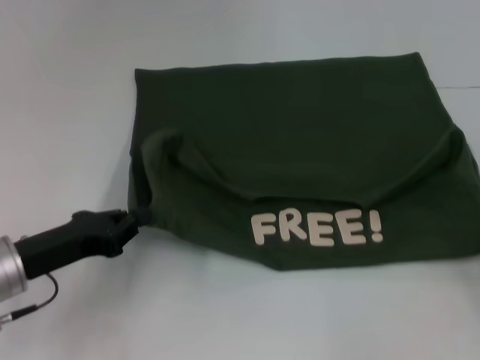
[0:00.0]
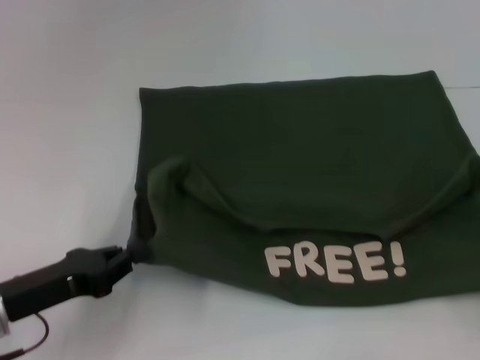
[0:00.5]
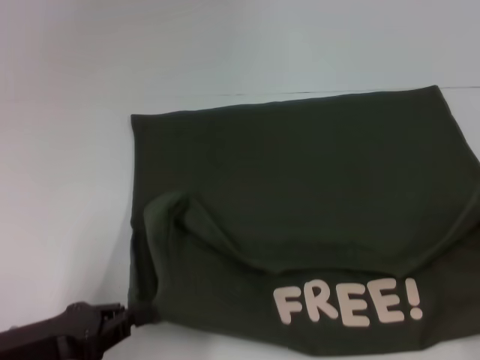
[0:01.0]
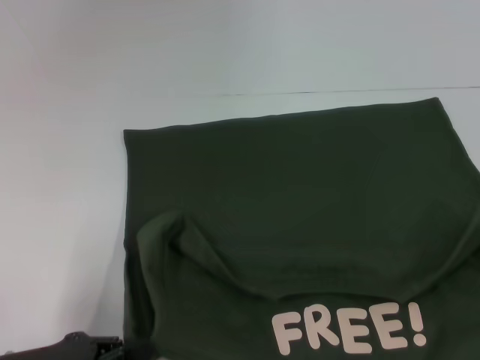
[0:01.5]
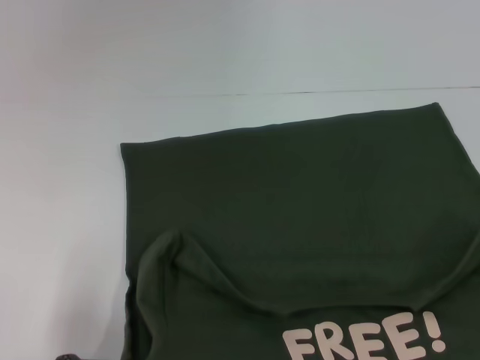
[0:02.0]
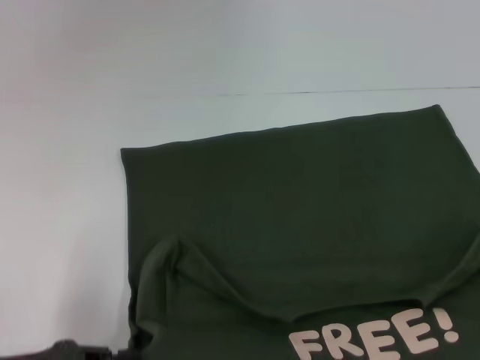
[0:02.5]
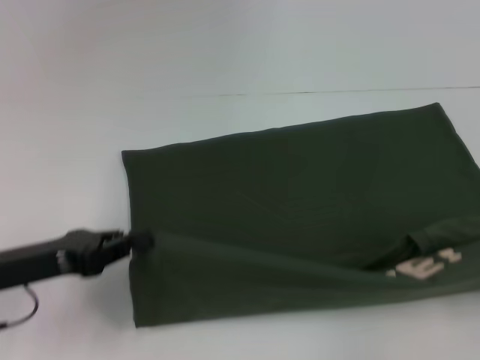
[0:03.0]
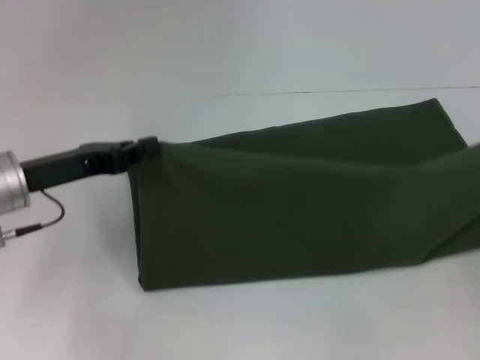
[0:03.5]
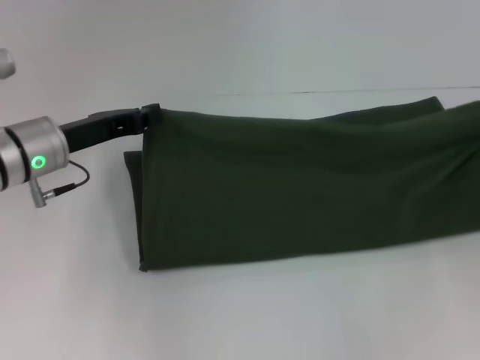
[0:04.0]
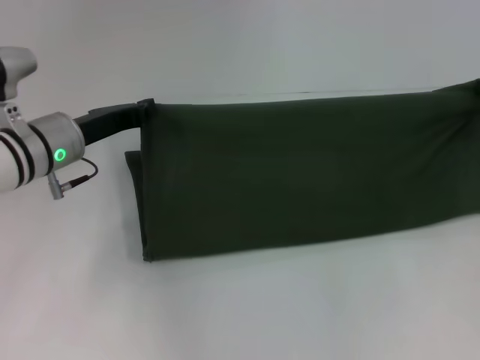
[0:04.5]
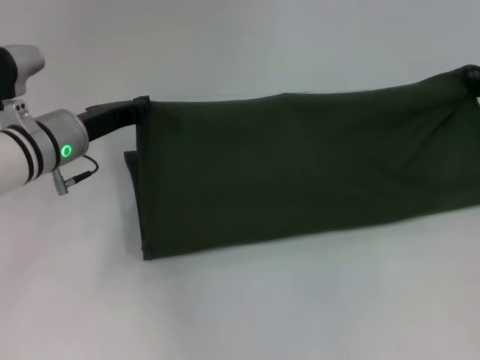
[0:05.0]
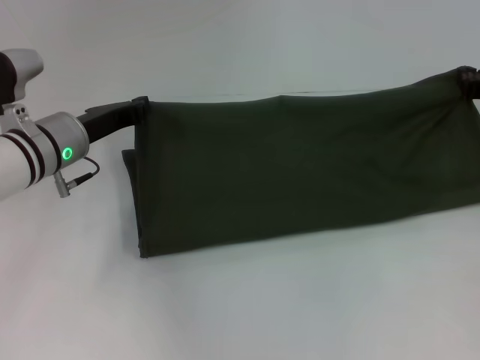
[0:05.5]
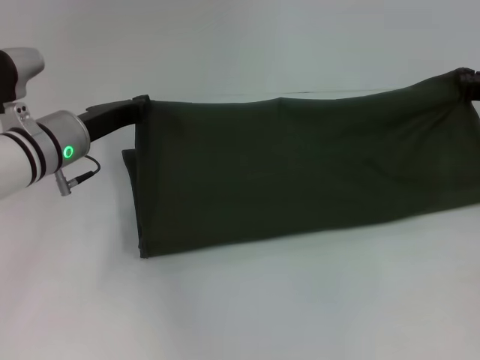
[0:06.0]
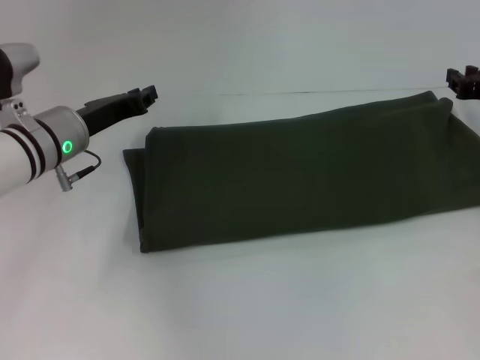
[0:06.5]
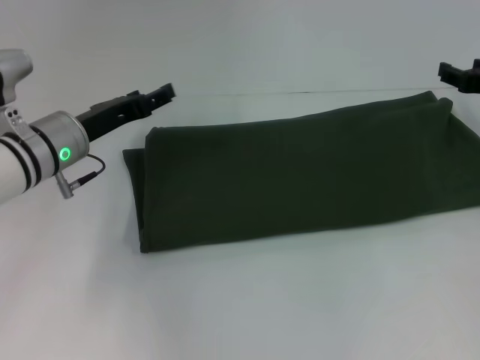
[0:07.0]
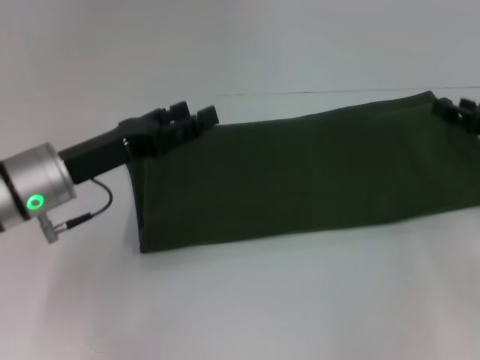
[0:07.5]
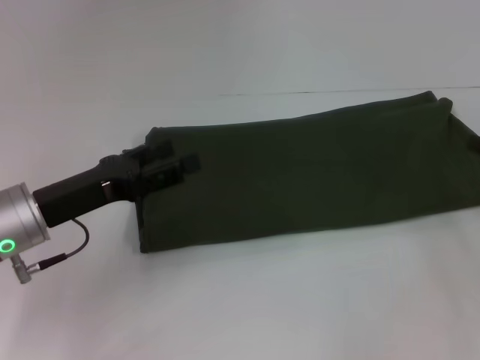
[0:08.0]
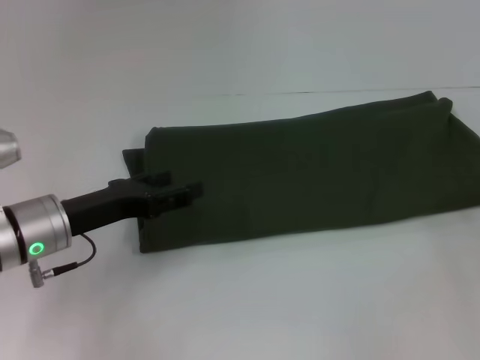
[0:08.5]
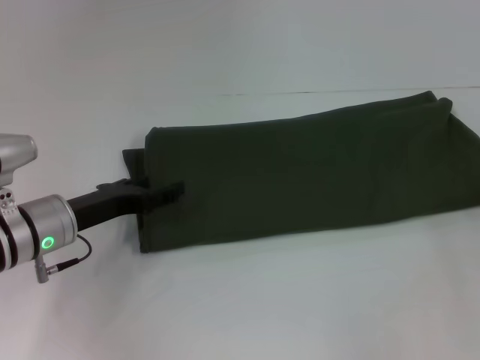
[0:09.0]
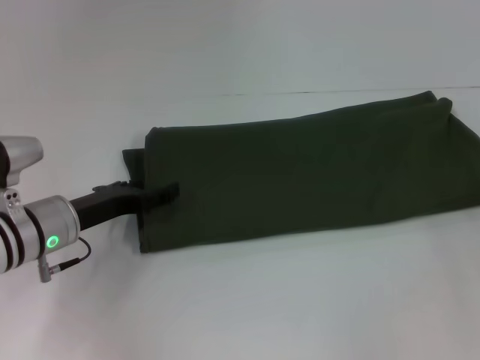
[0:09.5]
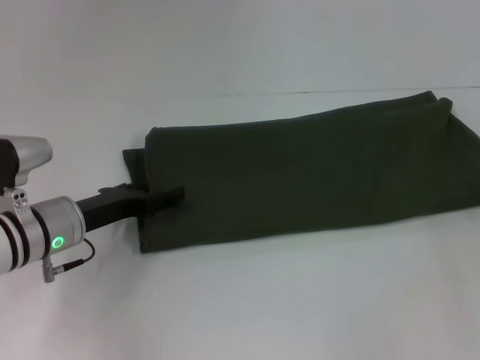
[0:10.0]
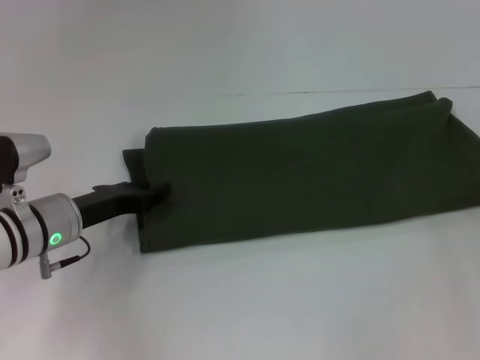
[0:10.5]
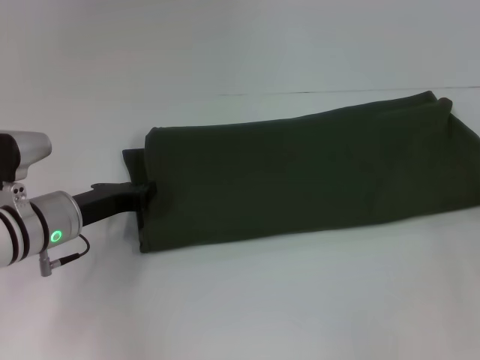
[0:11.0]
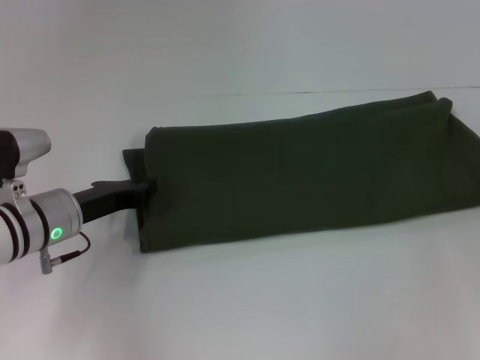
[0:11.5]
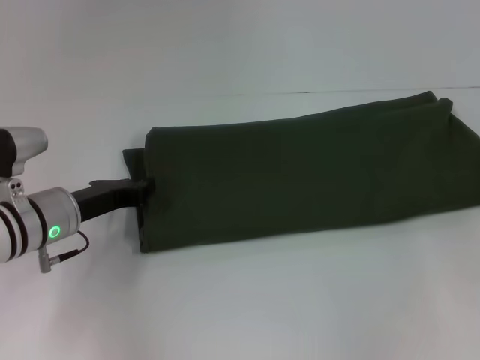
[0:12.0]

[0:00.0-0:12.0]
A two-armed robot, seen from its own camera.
Step, 0:02.0 to 0:06.0: Fold the clothes with your right hand.
0:00.0 to 0:02.0: The grippers both shift backward by approximately 10 cm.
0:02.0 to 0:04.0: The grippers both shift forward by about 25 cm.
0:04.0 to 0:06.0: The right gripper moves forward and to the left, some 10 cm.
0:06.0 to 0:08.0: The grippers both shift backward by approximately 10 cm. The right gripper opens. The left gripper opens its fingers.
0:08.0 to 0:10.0: The left gripper travels downward by about 5 cm.
0:10.0 to 0:12.0: The left gripper closes its fingers.

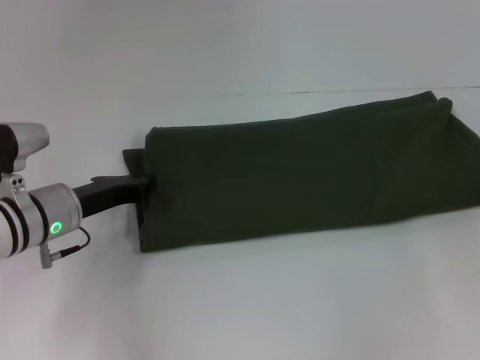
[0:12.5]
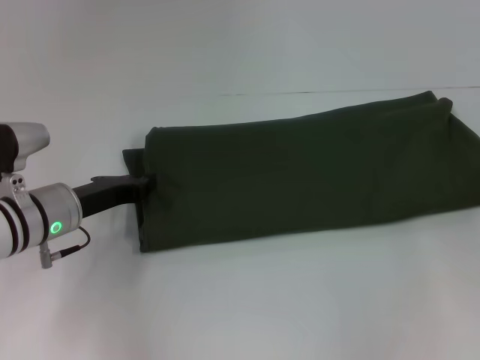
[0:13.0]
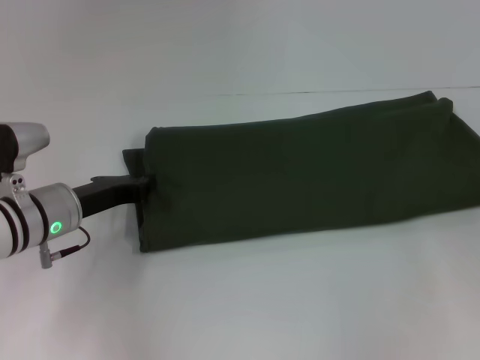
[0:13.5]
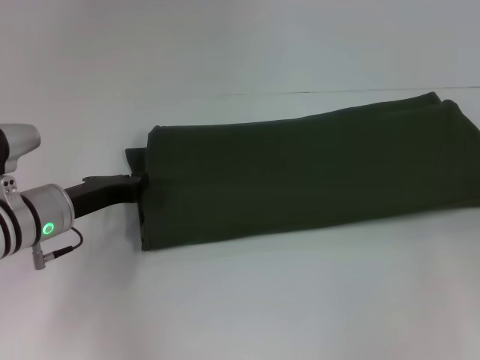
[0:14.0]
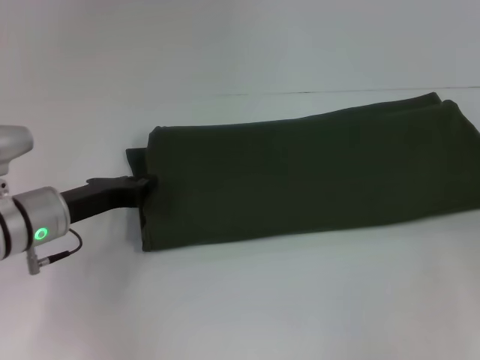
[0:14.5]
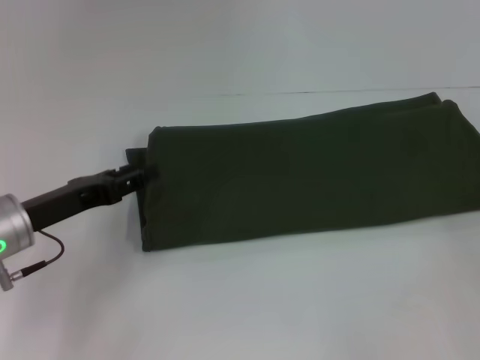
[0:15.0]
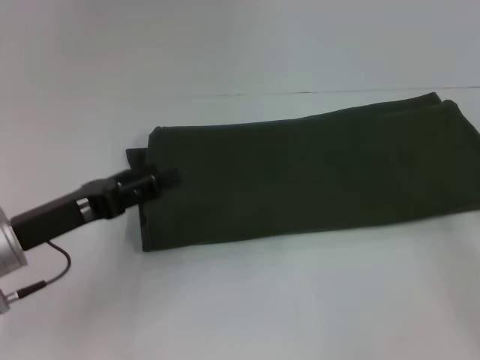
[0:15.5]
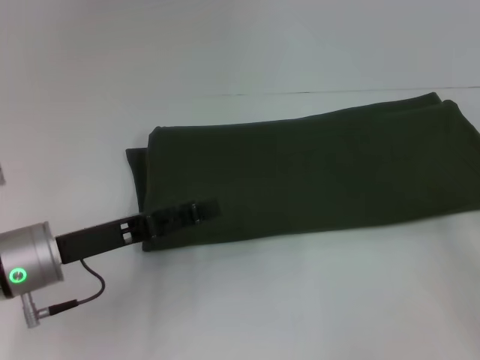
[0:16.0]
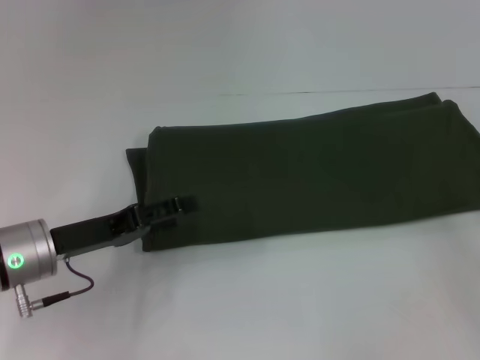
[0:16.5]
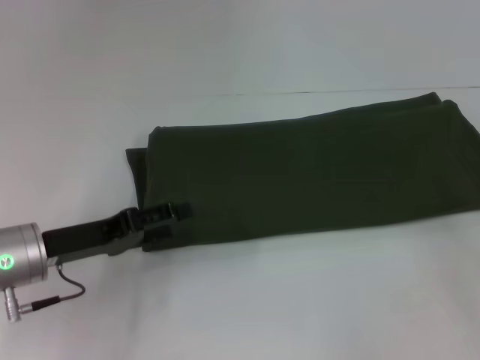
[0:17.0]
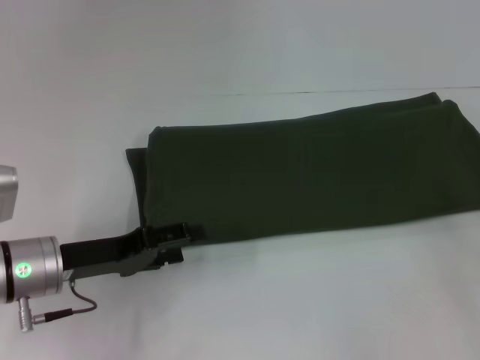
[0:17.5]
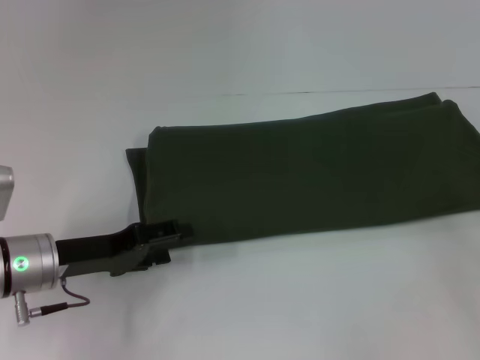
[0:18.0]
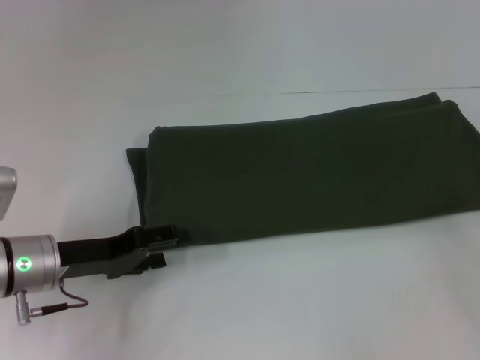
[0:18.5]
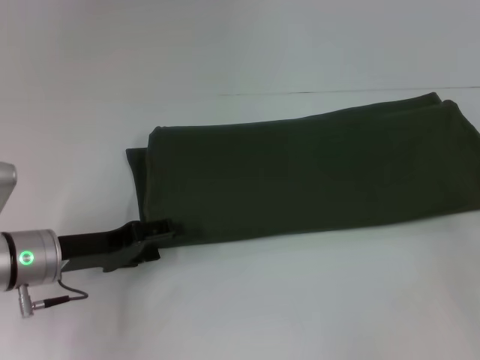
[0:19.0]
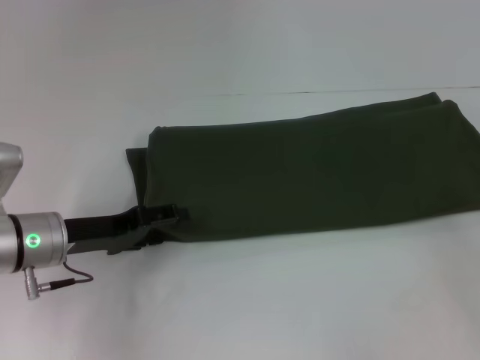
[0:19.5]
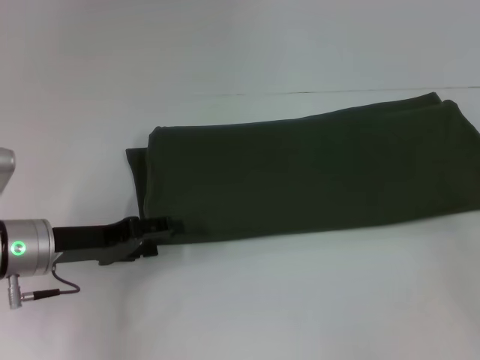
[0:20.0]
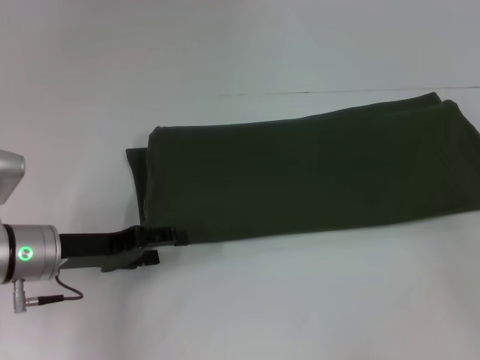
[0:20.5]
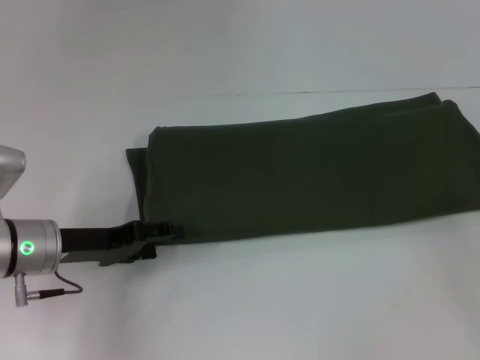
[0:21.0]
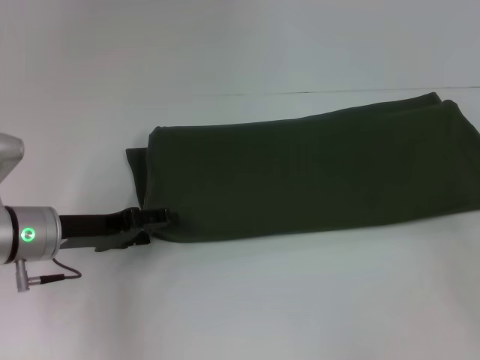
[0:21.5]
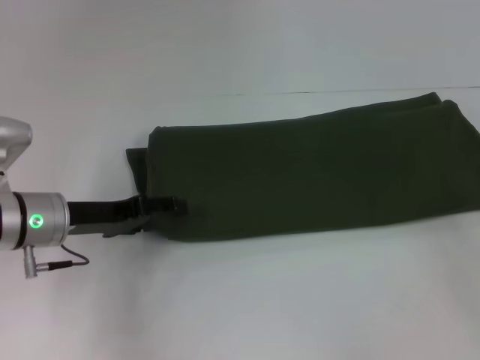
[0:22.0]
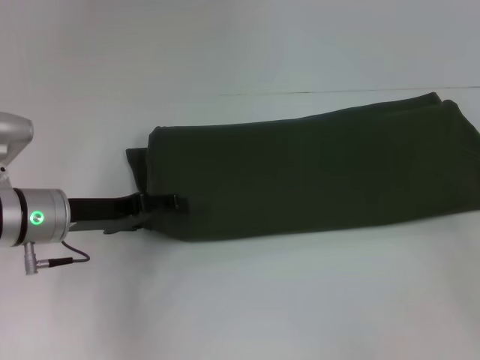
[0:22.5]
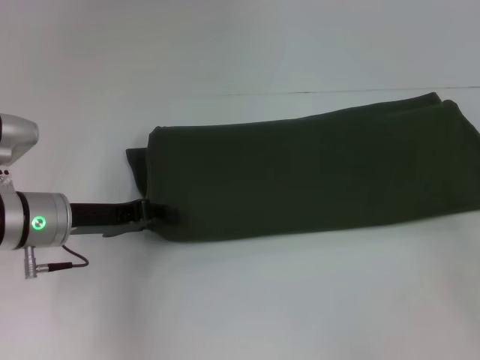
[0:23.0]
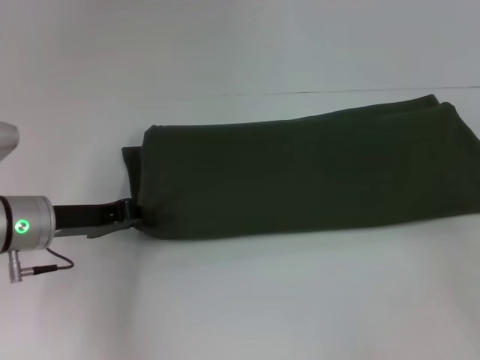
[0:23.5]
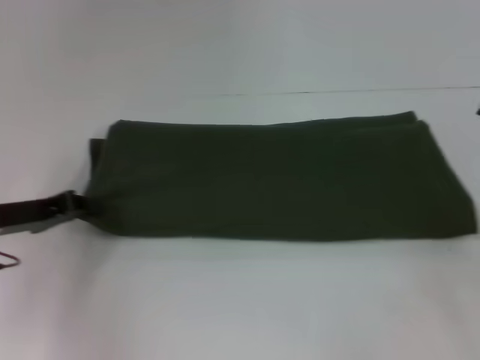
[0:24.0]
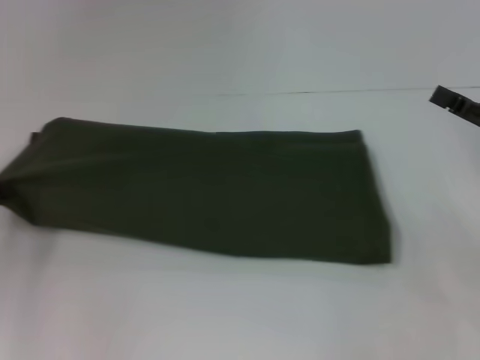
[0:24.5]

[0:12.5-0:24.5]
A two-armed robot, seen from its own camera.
0:12.5 to 0:14.5: The right gripper closes up.
0:14.5 to 0:16.5: The left gripper opens.
0:16.5 to 0:22.5: There are only small adjustments of the grippers.
0:22.5 to 0:24.5: The left gripper heads to the left, covering some 15 cm, and closes up. Meanwhile the right gripper travels to the left by roughly 5 cm.

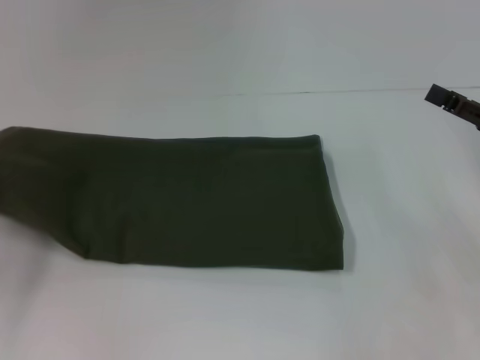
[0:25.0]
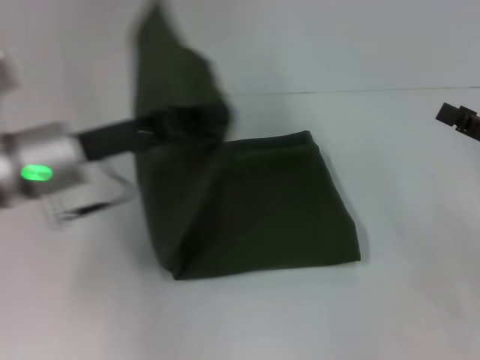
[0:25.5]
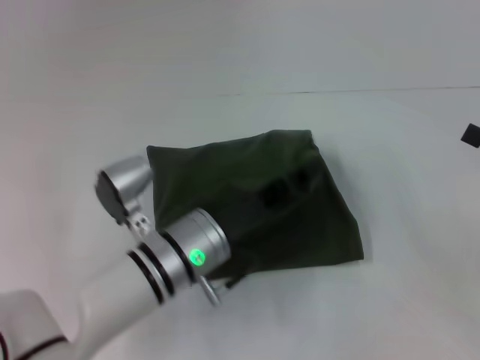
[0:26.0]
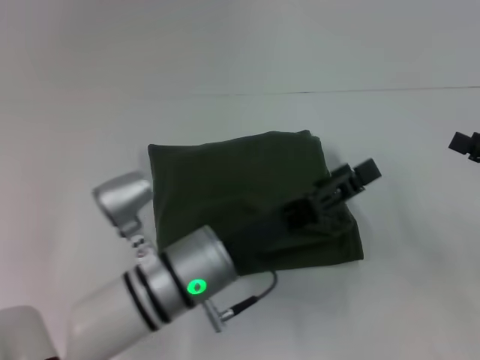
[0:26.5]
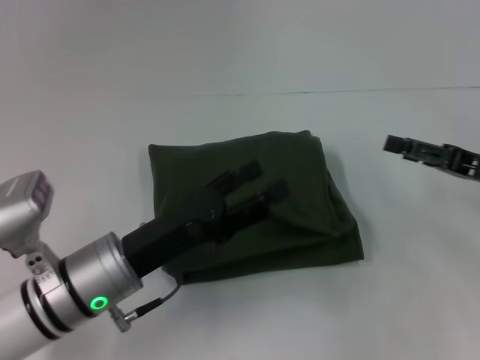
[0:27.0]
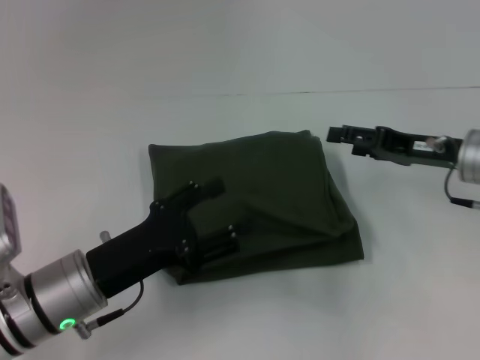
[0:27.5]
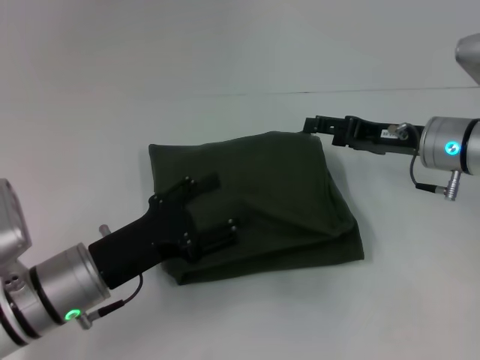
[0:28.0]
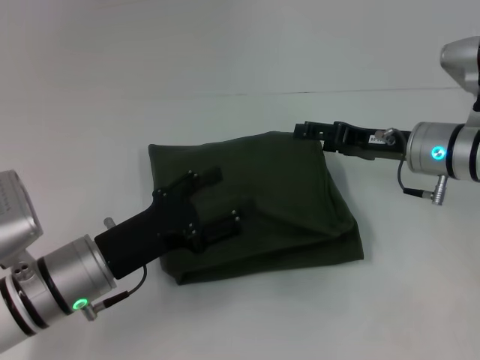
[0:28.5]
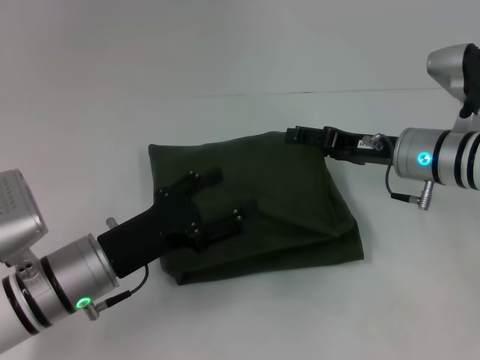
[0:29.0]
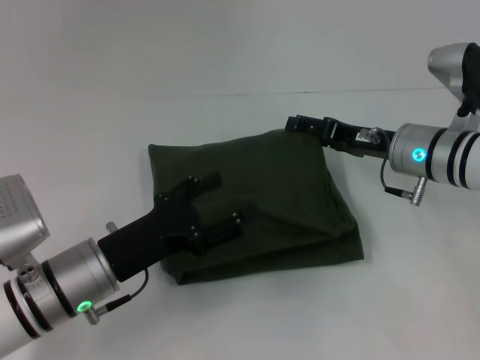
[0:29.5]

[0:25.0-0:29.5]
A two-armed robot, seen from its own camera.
0:25.0 to 0:27.0: The left gripper heads to the right, covering about 25 cm, and opens its fingers.
0:27.0 to 0:29.5: The right gripper goes approximately 15 cm to the left and forward.
